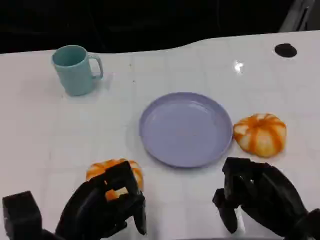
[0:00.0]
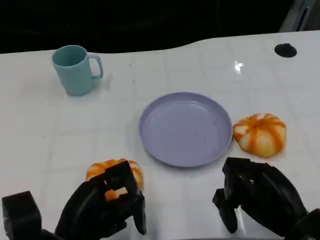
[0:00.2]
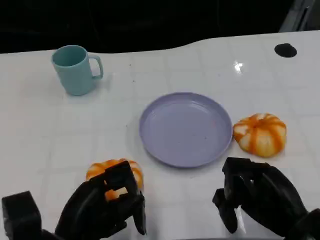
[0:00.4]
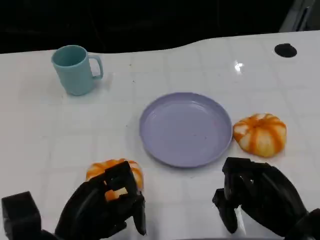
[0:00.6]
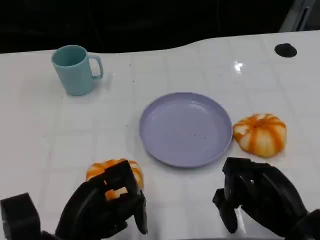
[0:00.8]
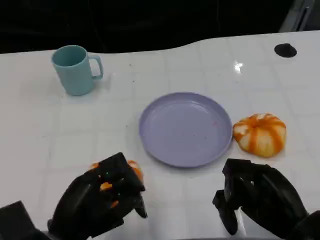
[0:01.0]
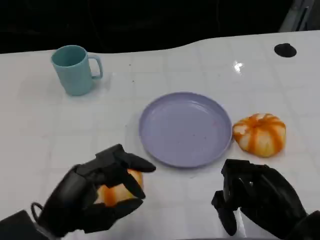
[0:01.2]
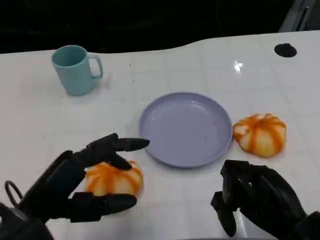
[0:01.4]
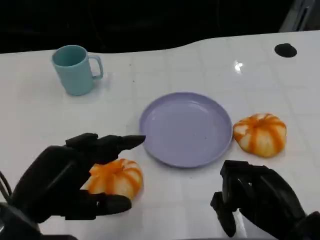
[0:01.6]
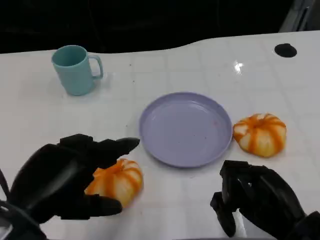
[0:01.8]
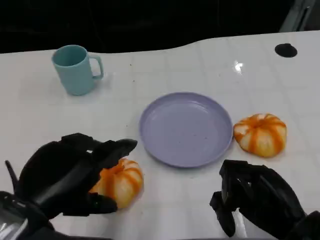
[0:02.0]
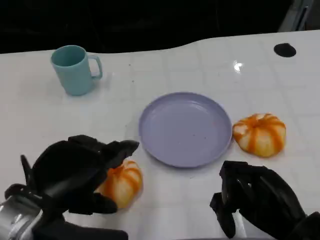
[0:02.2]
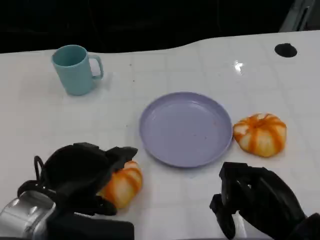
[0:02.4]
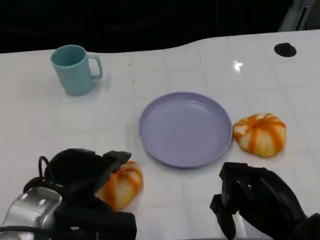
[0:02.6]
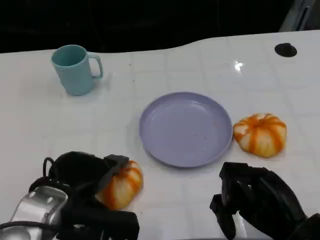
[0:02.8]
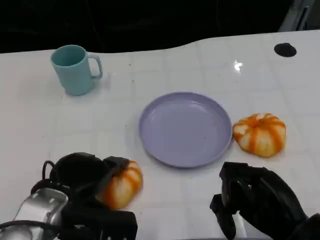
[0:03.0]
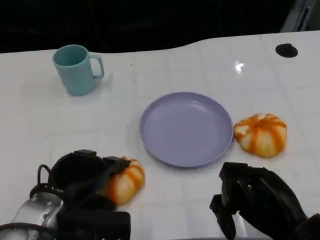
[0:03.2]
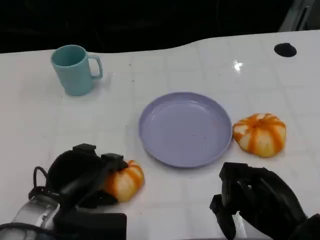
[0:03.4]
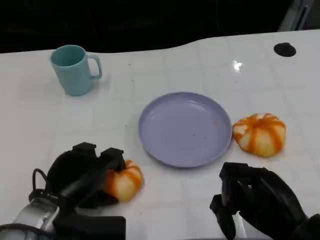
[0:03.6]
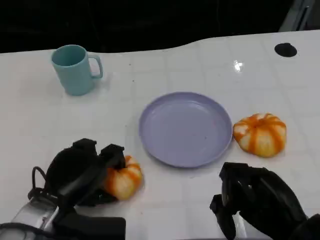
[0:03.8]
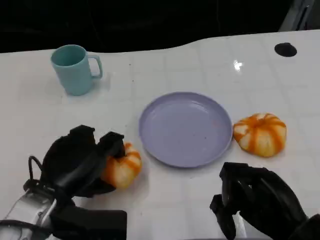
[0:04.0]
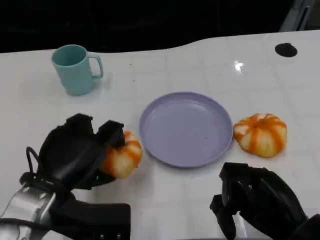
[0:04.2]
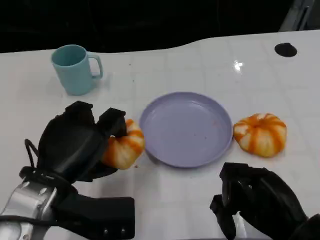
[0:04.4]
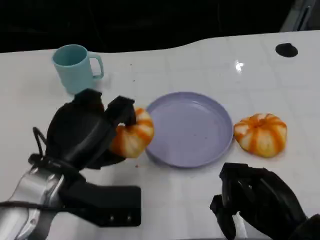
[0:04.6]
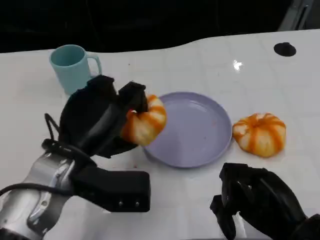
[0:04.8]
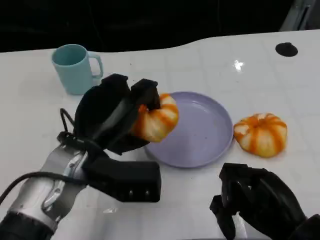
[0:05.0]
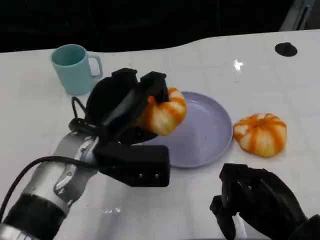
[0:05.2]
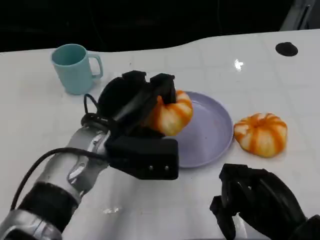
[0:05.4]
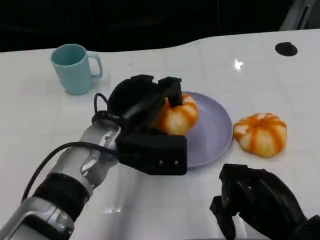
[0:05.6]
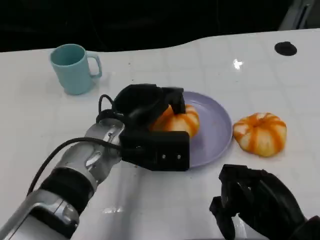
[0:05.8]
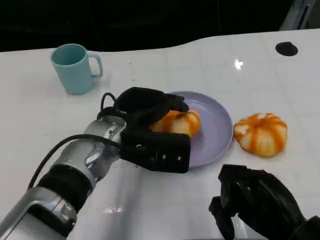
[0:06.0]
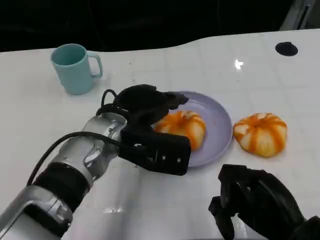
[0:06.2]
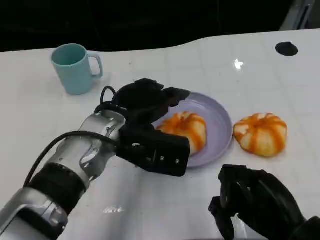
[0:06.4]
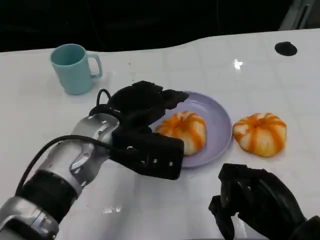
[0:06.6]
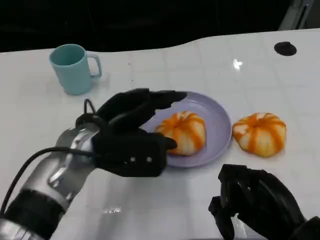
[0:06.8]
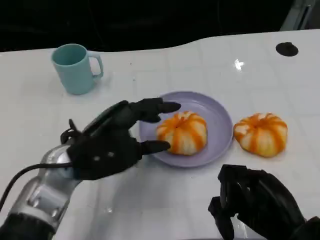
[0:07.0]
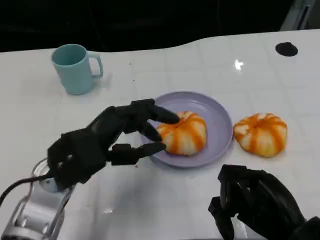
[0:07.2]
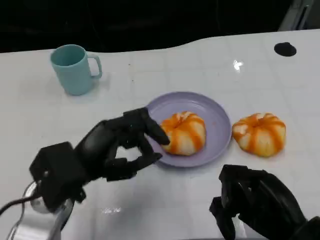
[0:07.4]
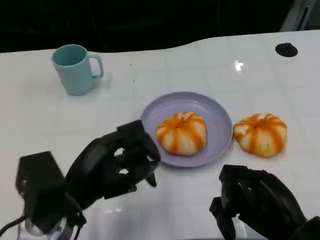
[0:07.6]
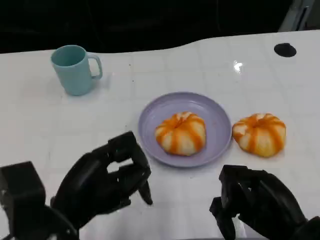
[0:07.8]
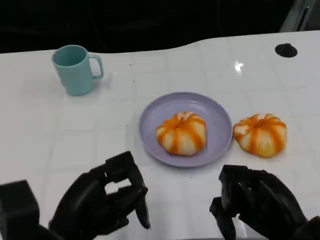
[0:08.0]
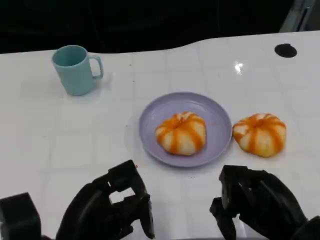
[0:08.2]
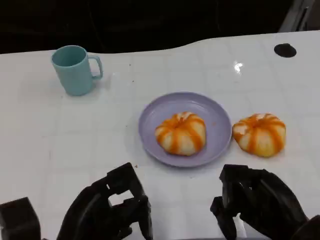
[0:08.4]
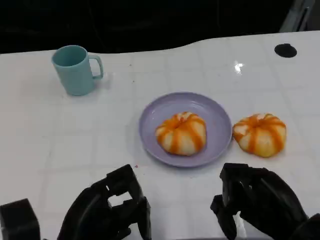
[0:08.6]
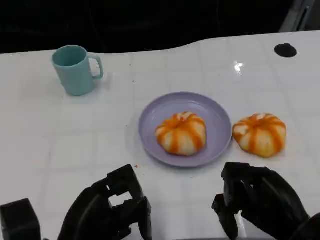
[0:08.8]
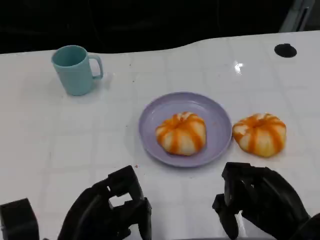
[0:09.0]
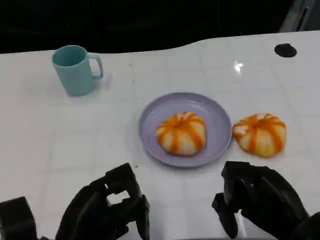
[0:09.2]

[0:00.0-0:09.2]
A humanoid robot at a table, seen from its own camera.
Task of the whole recording: Grasp the bread from the table and place it into the plate.
0:00.0 to 0:01.6: The left hand goes roughly 10 cm upward.
0:01.6 to 0:03.0: The left hand heads downward and forward, covering some 10 cm.
0:03.0 to 0:04.6: The left hand heads upward, covering roughly 5 cm.
0:04.6 to 0:06.2: The left hand heads to the right and forward, covering approximately 10 cm.
0:06.2 to 0:07.6: The left hand is displaced backward and to the left by roughly 15 cm.
0:07.6 to 0:09.2: The left hand moves about 5 cm.

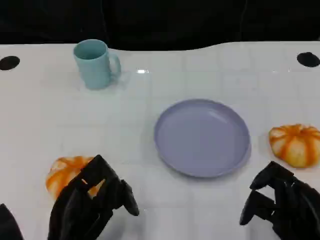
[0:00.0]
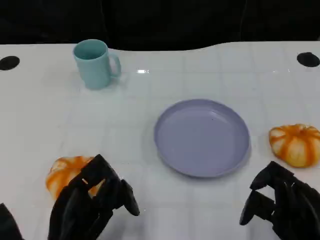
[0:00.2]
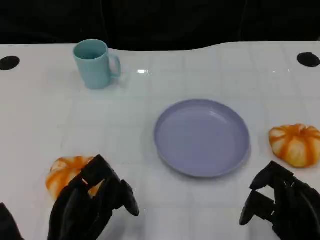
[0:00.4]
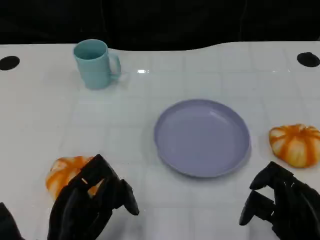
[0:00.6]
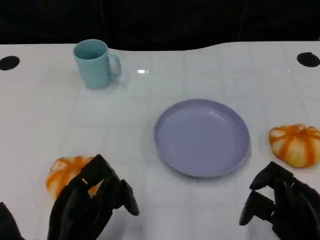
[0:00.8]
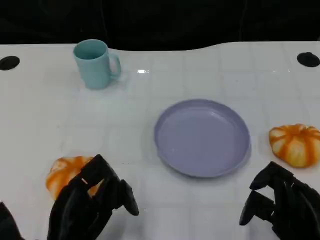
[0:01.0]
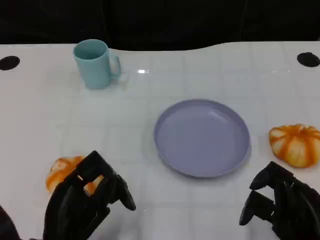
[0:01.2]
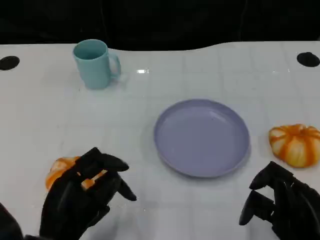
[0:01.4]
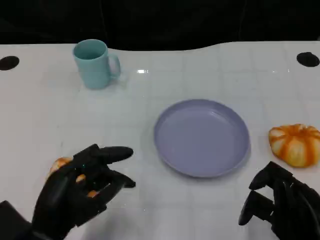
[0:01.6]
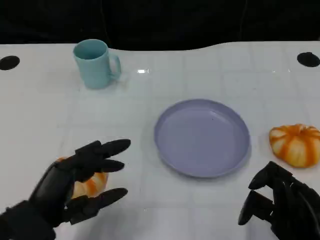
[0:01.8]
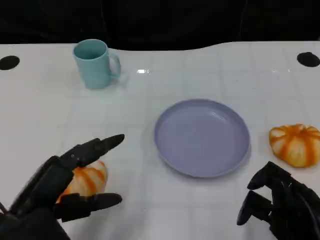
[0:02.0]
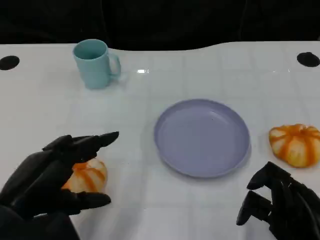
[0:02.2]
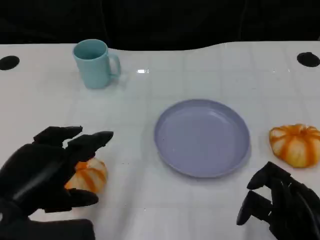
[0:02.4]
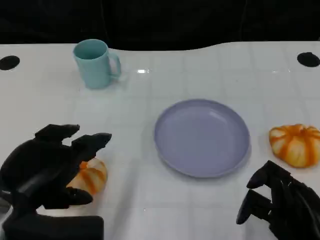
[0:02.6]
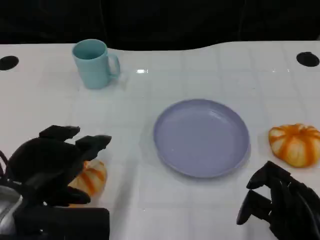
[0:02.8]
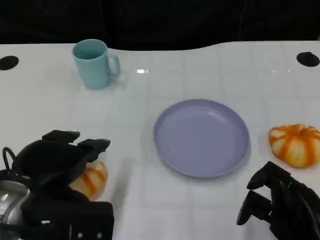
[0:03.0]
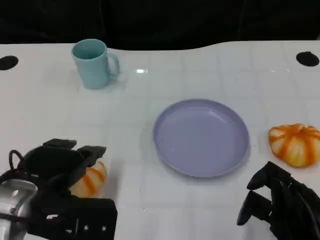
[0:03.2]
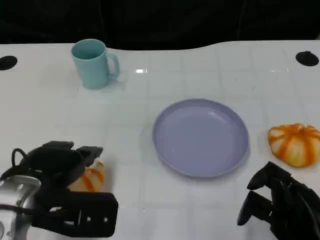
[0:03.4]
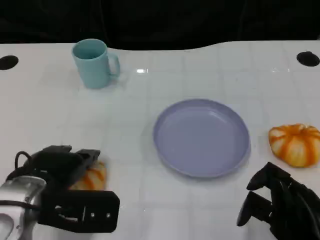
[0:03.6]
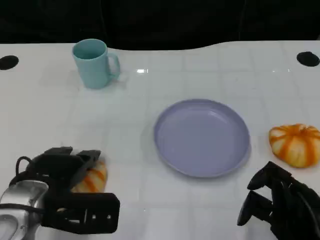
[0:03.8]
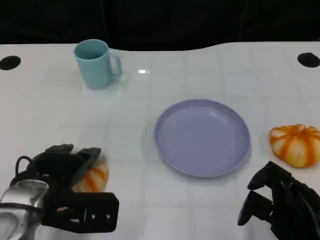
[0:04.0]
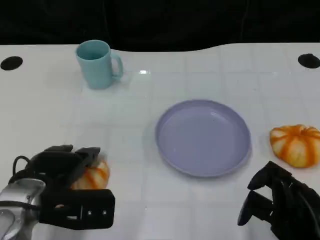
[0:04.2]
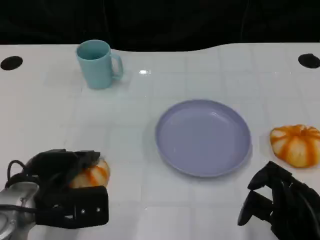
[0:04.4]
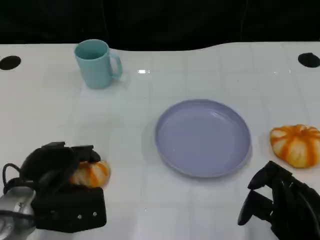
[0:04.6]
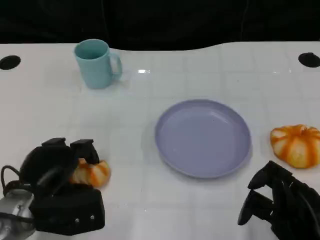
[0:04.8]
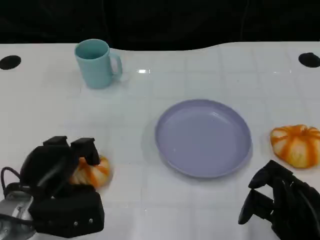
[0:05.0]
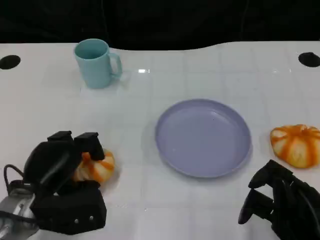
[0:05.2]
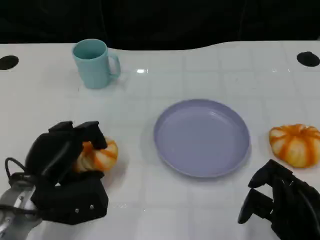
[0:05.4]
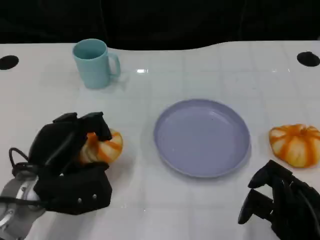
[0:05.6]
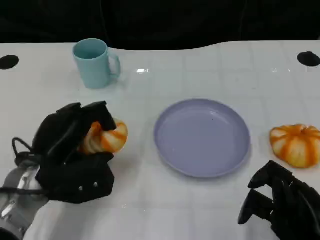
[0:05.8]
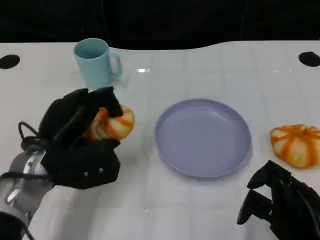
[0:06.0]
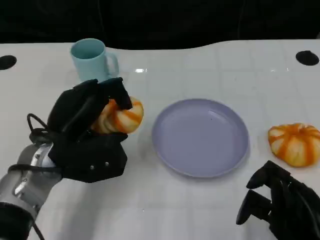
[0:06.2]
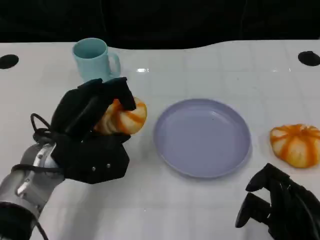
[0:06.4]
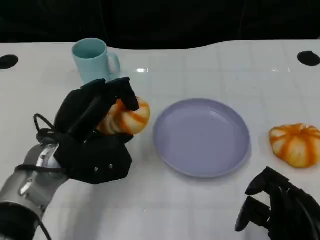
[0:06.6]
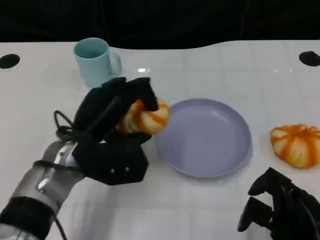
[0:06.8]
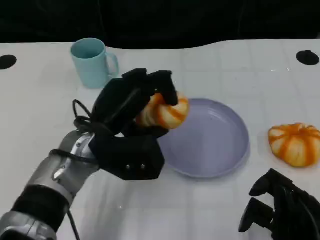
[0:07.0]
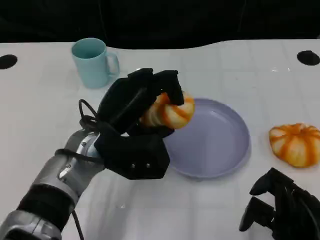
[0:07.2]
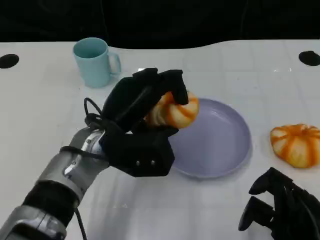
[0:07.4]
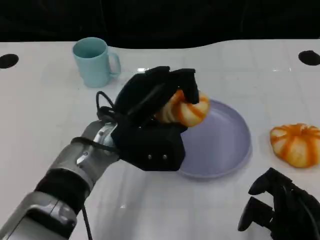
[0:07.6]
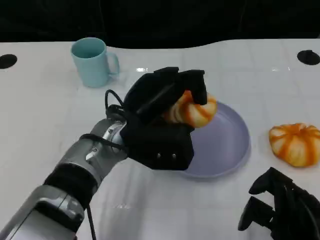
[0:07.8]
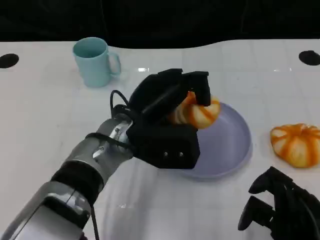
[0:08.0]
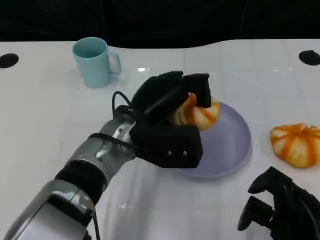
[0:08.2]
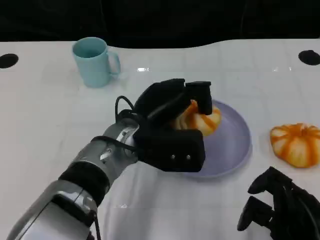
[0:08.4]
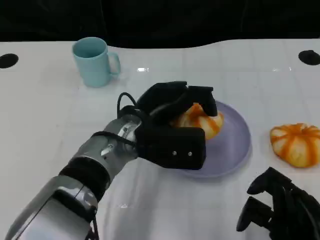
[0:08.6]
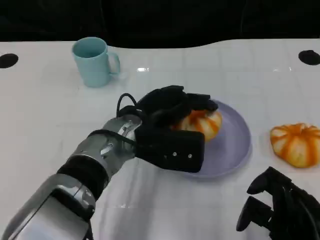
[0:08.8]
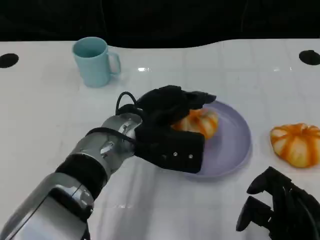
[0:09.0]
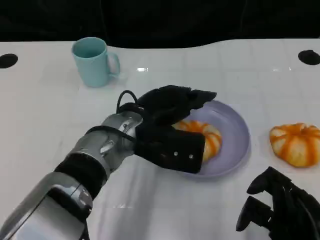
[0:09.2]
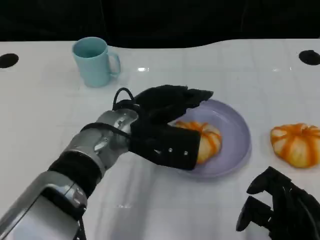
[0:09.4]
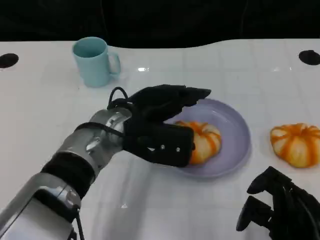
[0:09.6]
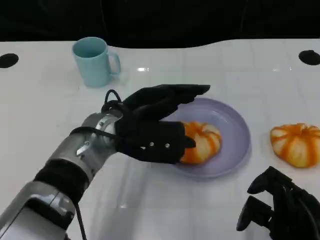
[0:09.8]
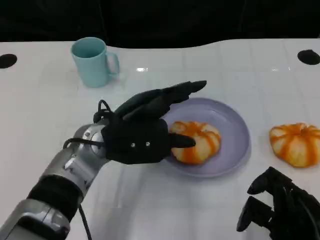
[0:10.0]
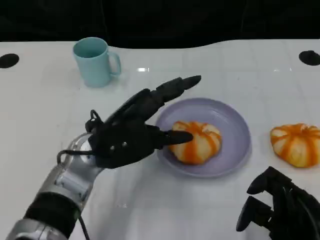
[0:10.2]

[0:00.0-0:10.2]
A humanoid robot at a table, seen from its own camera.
Task of the whole recording: Grasp the bread from the table and place it into the plate.
0:00.0 to 0:01.4: There are only small adjustments of the hands.
0:01.4 to 0:03.0: The left hand moves upward, roughly 10 cm.
0:03.0 to 0:04.4: The left hand travels downward by some 10 cm.
0:05.8 to 0:07.2: The left hand heads to the right, covering some 10 cm.
0:08.8 to 0:10.2: The left hand shifts approximately 5 cm to the left.

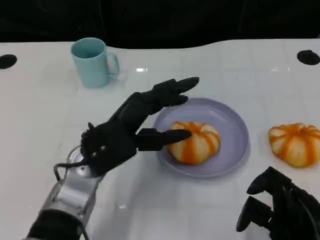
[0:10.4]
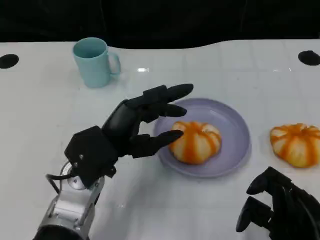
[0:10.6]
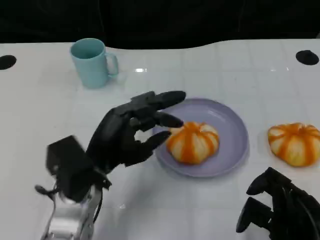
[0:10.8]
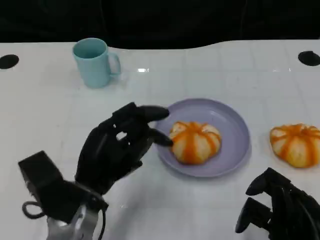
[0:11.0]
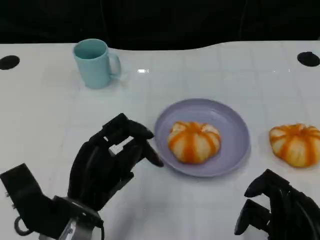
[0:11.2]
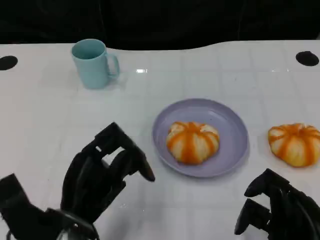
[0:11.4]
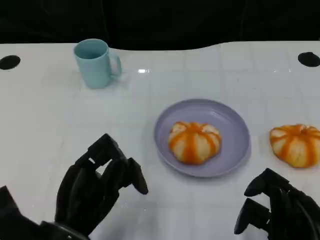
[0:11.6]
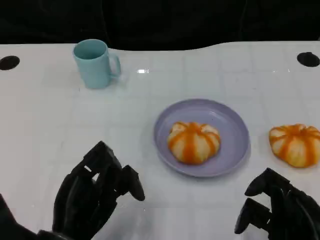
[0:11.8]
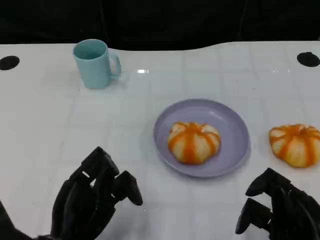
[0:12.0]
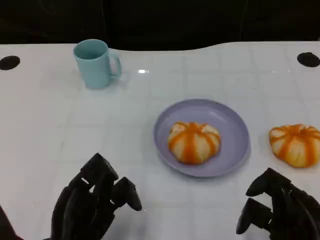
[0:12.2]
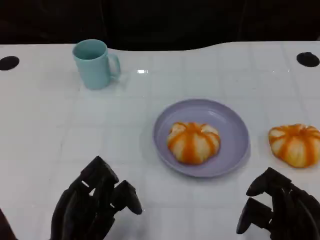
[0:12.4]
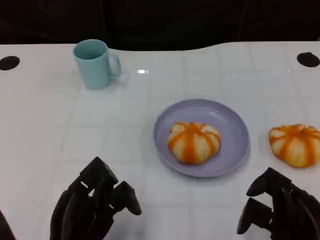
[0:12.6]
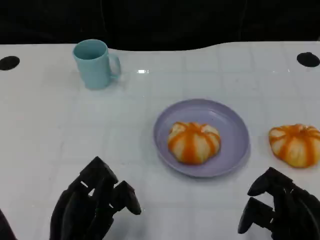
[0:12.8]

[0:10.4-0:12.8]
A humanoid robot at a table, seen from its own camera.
Task of the whole recording: Grasp the bread from the table and place it into the plate.
0:10.4 to 0:11.6: The left hand heads backward, covering about 10 cm.
0:11.6 to 0:12.8: The hands make only small movements.
